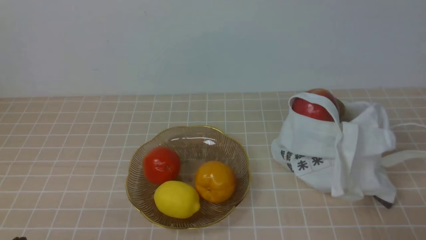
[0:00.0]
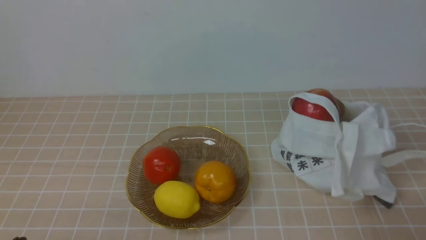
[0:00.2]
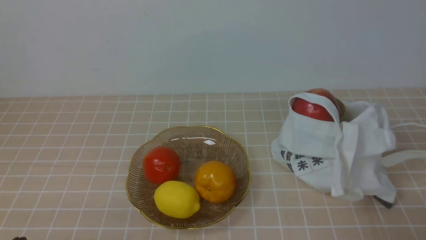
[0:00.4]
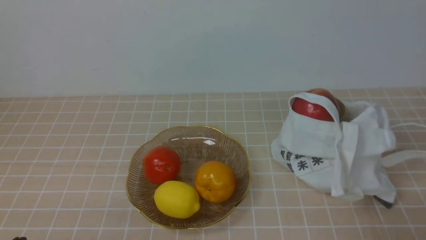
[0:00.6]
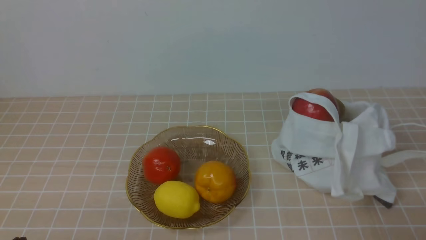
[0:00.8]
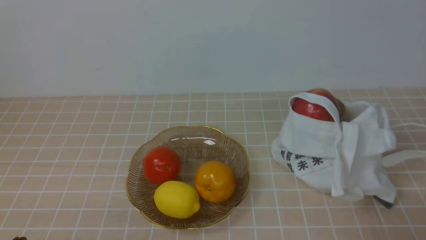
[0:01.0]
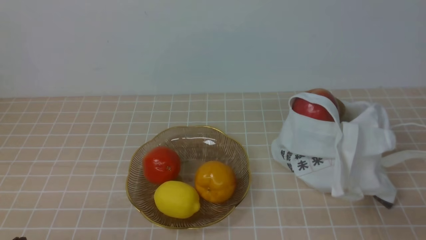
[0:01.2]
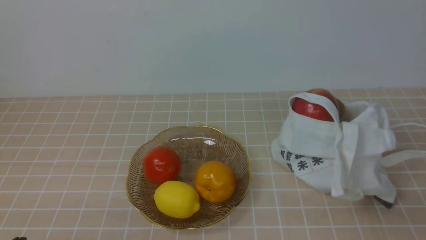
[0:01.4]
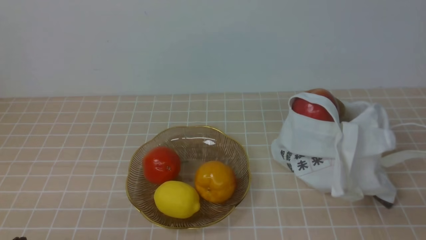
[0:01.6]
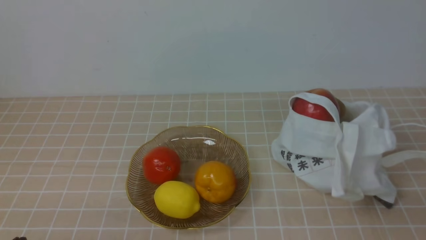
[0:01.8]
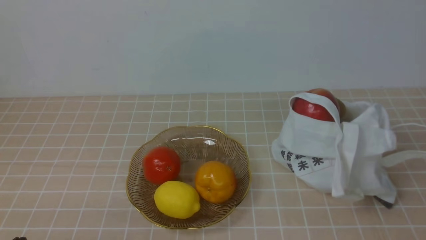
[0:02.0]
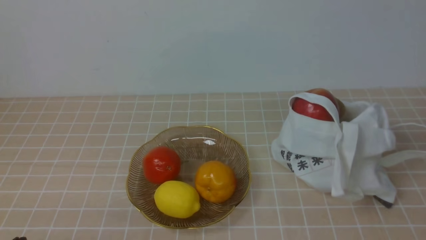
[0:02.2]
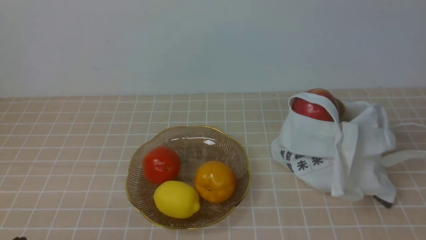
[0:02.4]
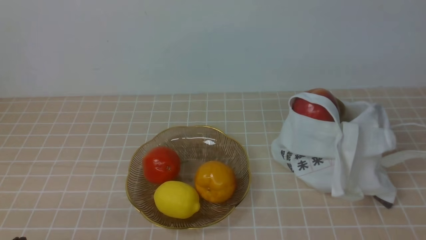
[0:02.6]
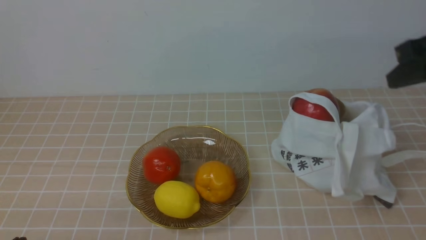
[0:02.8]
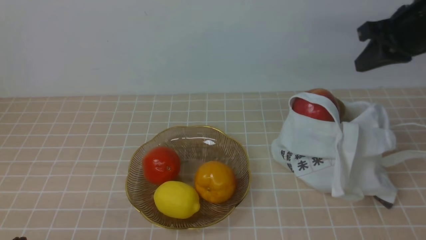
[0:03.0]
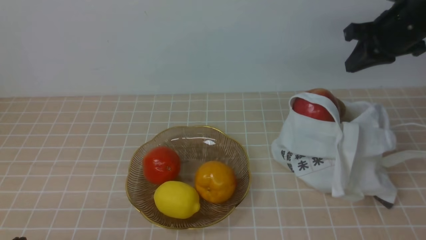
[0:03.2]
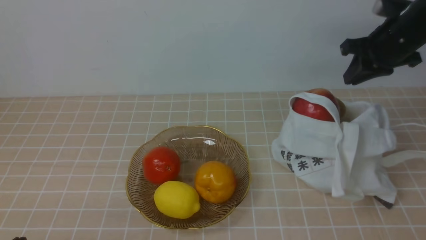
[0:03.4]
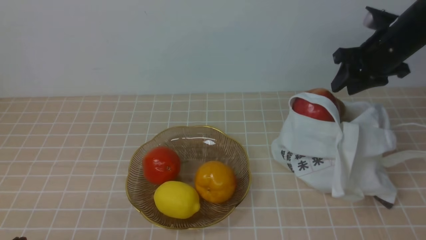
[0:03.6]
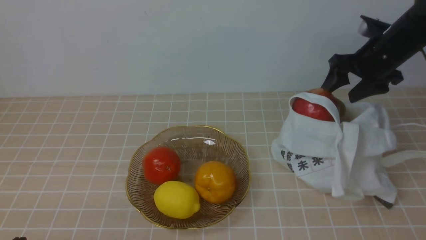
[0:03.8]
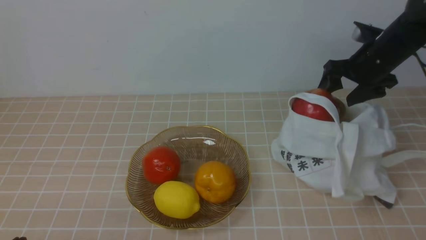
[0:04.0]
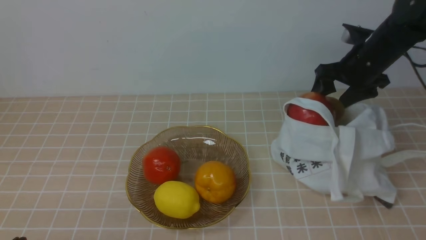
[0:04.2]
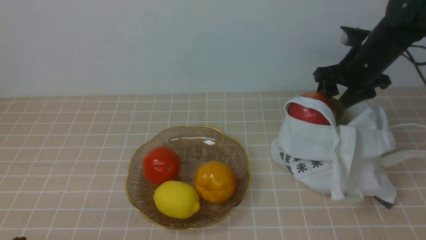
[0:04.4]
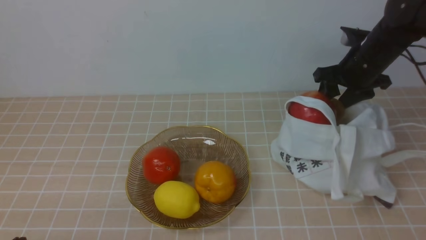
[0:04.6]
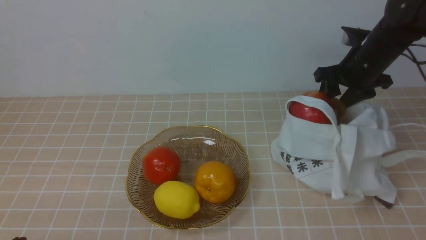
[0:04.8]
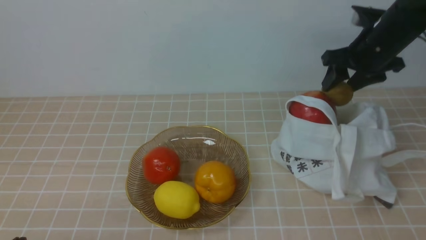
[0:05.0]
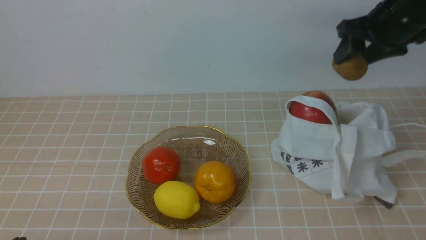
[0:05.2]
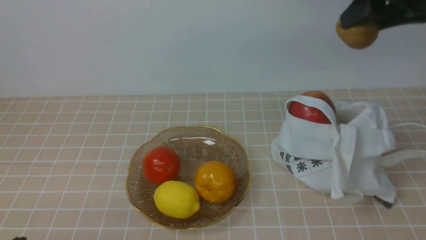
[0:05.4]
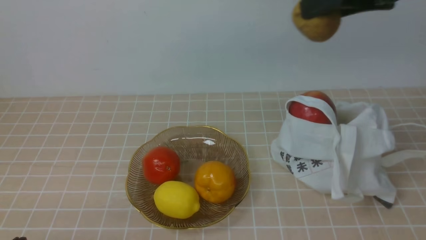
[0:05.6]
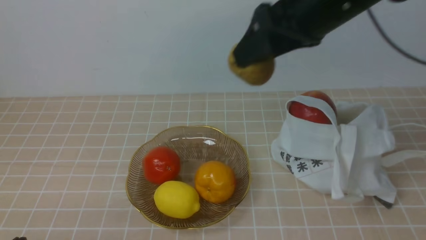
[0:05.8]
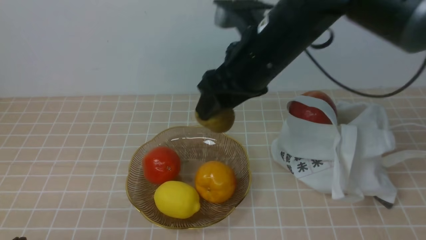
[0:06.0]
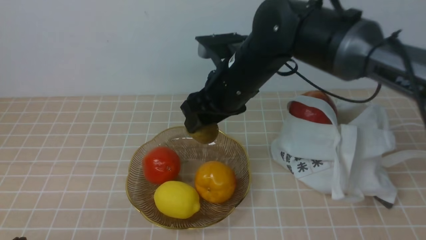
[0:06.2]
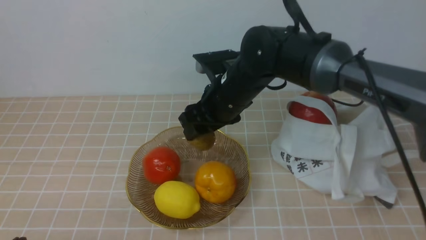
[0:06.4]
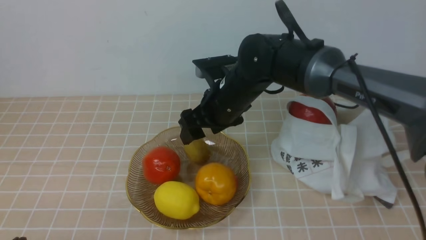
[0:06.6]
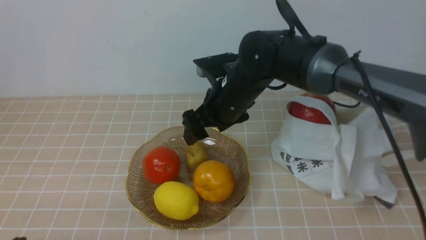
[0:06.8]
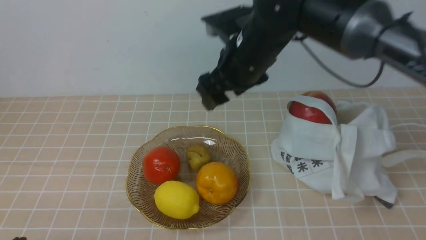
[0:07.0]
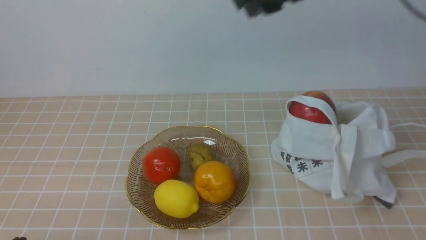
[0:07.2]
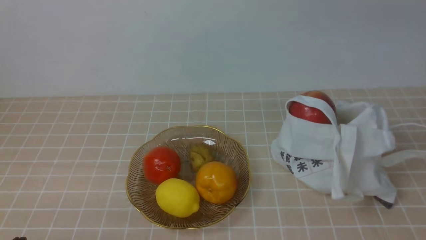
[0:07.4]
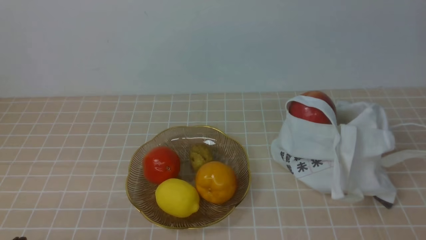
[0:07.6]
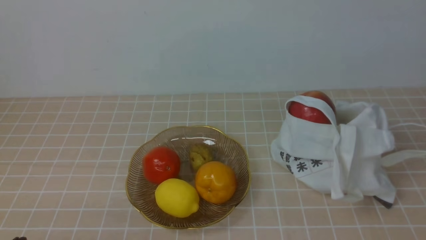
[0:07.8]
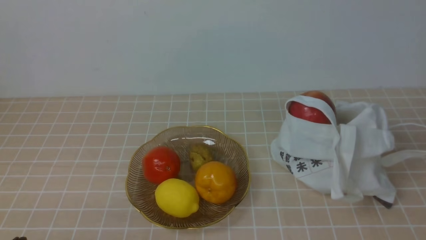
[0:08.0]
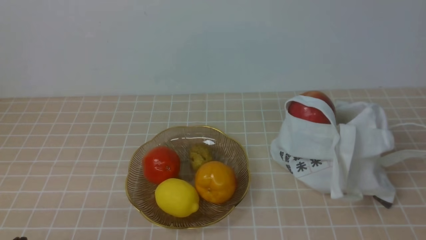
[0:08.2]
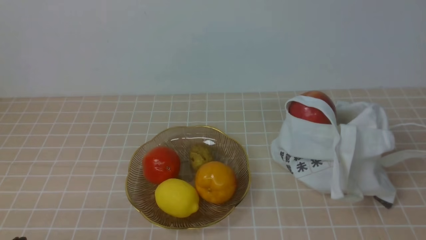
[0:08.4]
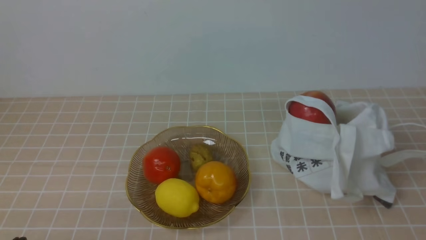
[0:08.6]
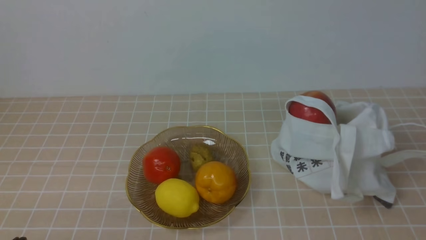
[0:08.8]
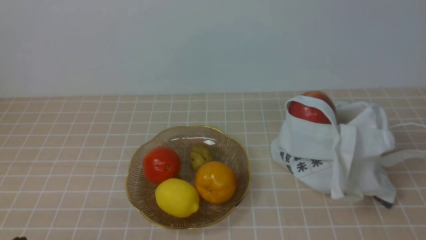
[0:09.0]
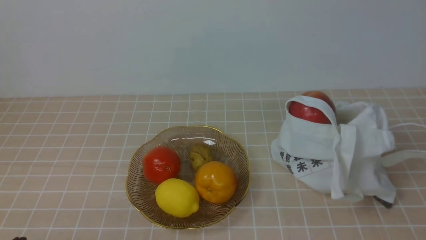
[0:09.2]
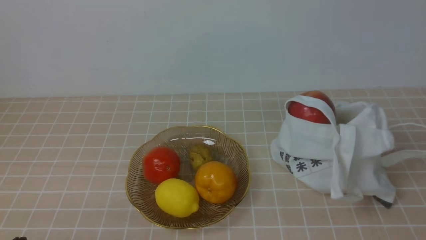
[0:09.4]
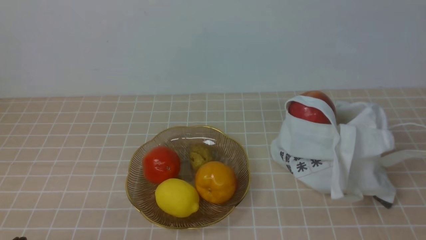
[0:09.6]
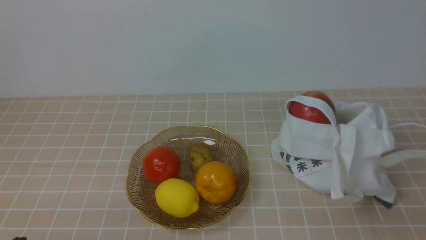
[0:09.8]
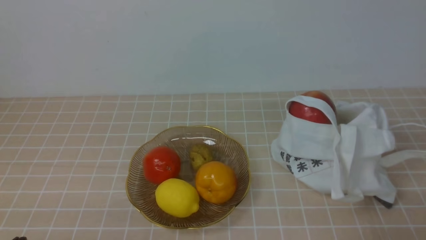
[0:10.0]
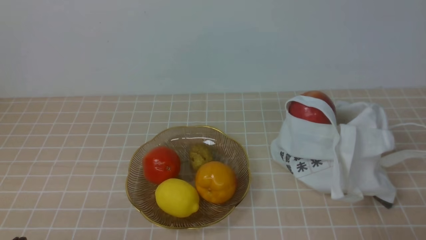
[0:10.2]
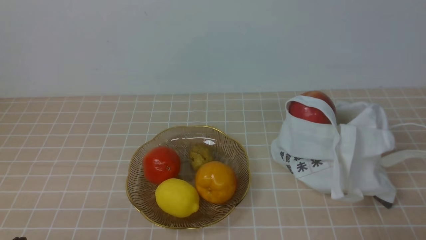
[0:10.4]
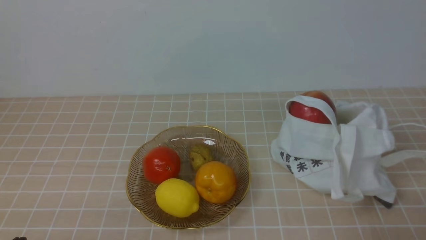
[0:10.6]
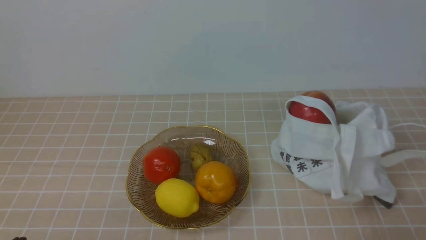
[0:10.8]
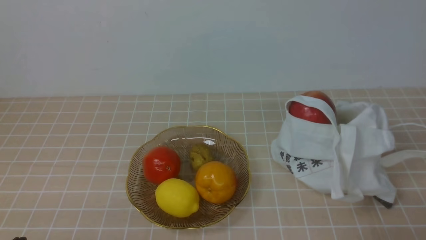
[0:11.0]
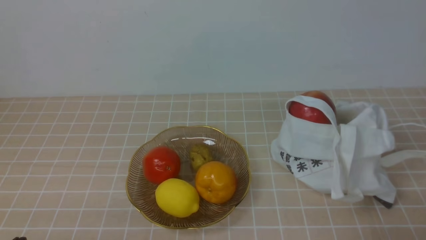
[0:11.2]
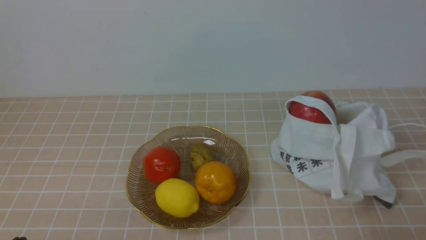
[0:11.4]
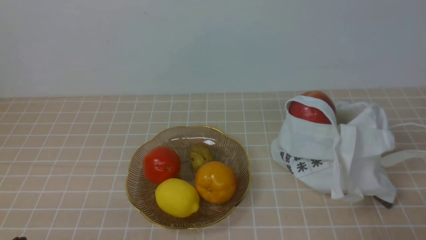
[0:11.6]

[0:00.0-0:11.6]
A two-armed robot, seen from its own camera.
Step, 0:00.0 to 0:04.8: use the right arm to grab a kiwi from the bag.
Step, 0:05.0 to 0:06.6: use the right arm to put the kiwi into the empty plate on the left.
0:01.4 to 0:02.8: The right gripper heads upward and forward, covering approximately 25 cm.
0:02.8 to 0:04.4: The right gripper moves forward and downward, some 25 cm, and opens its fingers.
0:04.4 to 0:05.8: The right gripper heads upward, backward and to the left, covering roughly 25 cm.
0:05.8 to 0:07.2: The right gripper goes some 10 cm to the left, and reaches approximately 20 cm downward, then returns.
0:07.2 to 0:08.8: The right gripper is displaced backward and to the right by some 40 cm, and closes its fingers.
0:10.2 to 0:11.6: Both grippers stay about where they are.

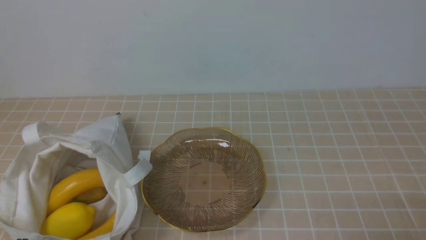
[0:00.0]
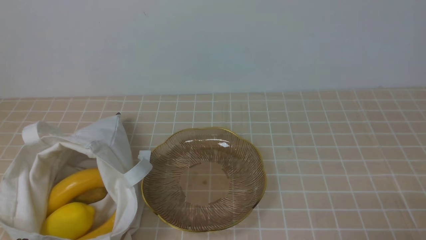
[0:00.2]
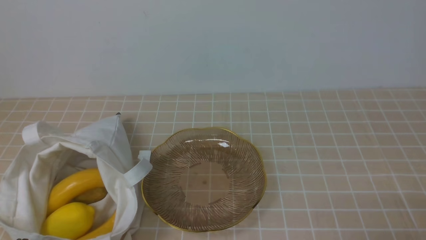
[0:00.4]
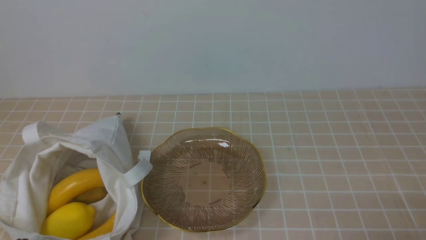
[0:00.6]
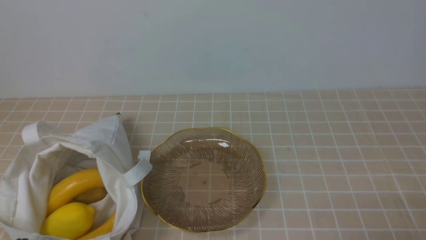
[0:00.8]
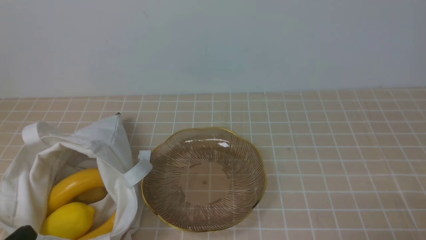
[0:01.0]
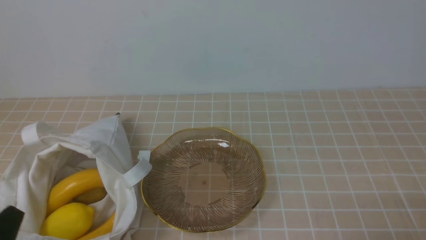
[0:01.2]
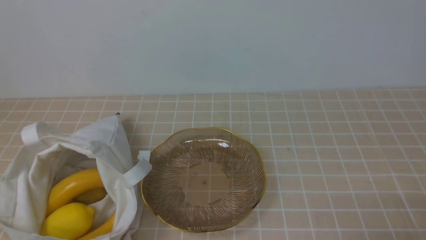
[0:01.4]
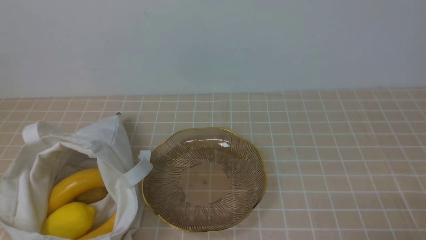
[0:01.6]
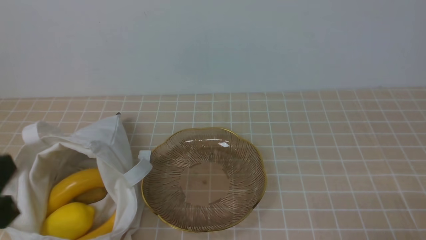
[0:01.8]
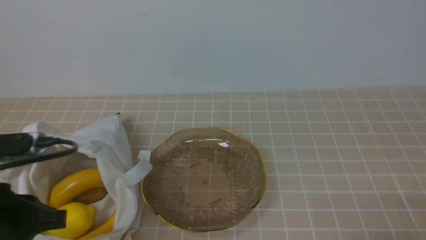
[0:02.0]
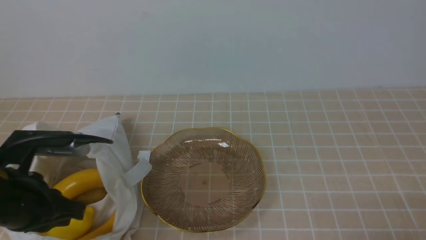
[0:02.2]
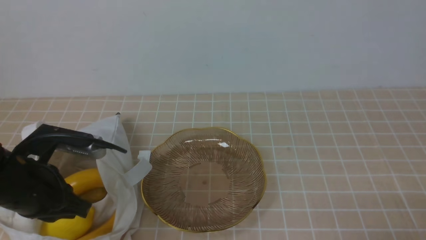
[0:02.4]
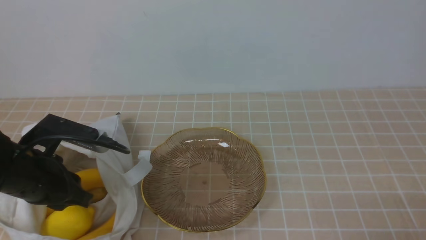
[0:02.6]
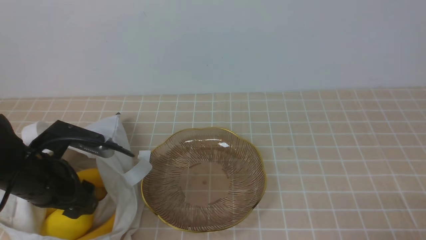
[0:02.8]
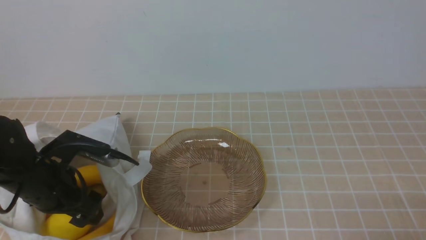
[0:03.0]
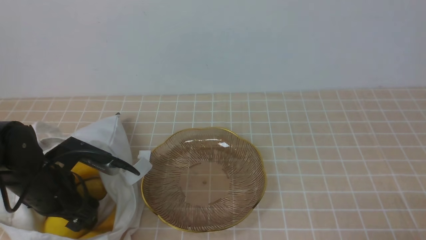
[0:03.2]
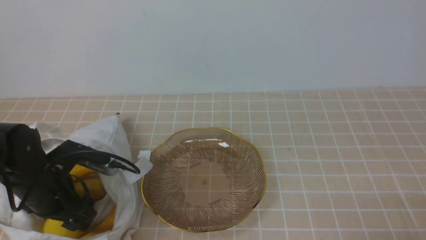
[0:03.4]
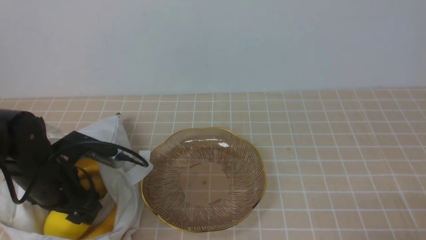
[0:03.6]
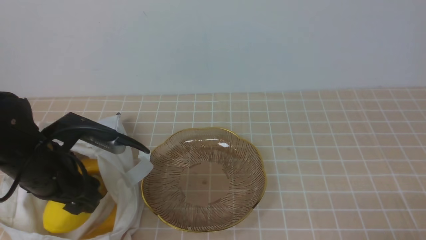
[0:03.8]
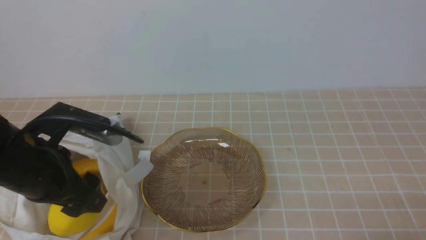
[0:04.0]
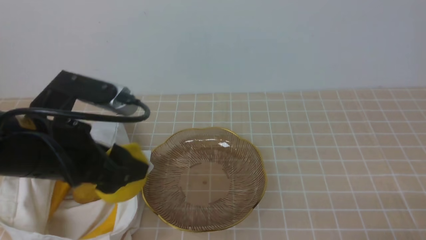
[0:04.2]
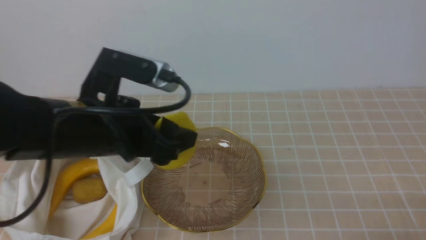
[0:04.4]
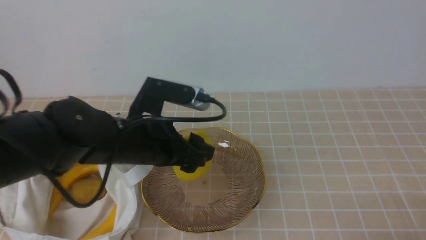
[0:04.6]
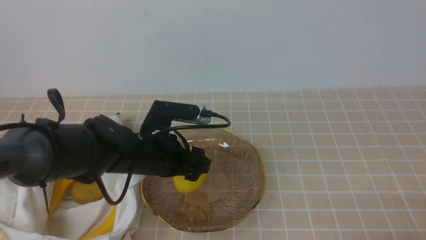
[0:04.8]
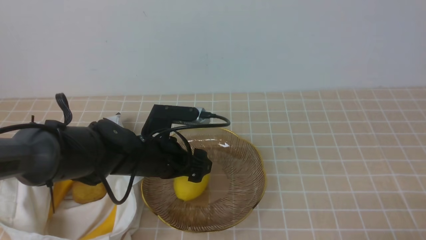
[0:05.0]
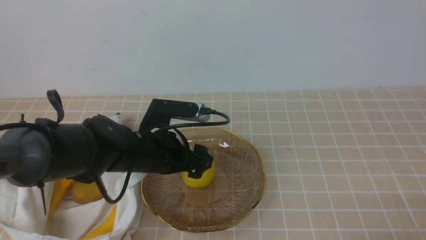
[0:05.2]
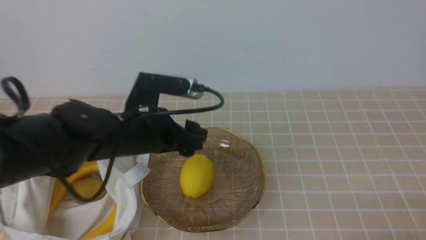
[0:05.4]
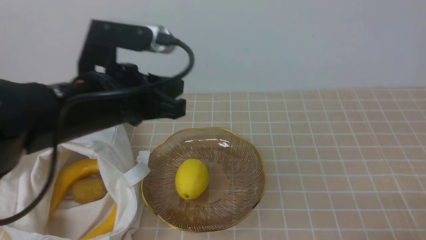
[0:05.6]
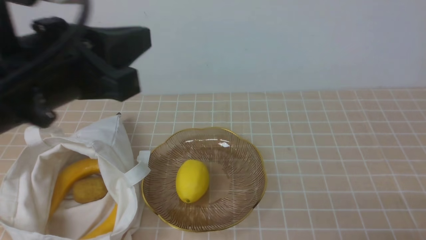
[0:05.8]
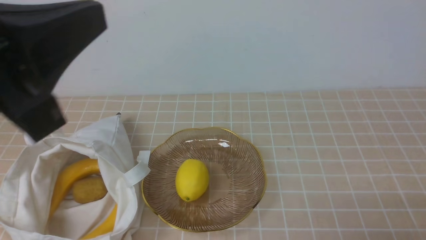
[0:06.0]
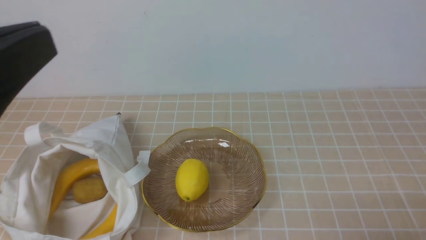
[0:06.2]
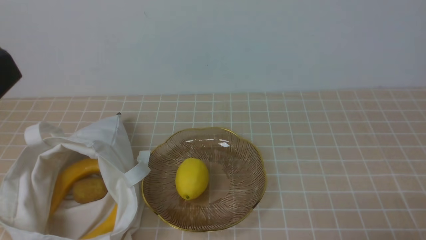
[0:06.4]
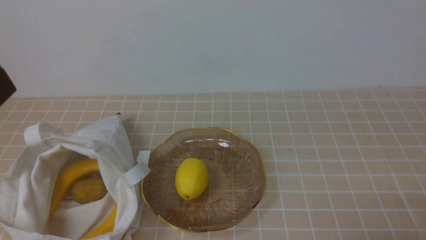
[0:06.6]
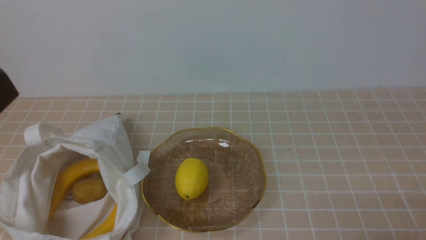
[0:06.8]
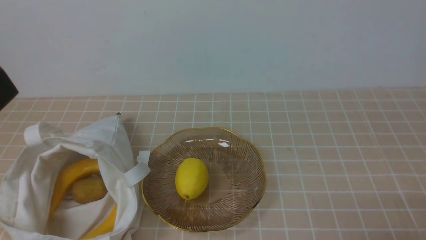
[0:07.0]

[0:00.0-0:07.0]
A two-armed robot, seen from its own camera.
Step, 0:00.0 to 0:03.6: use the left arm to grab a lemon from the bag.
Step, 0:04.0 to 0:05.0: use the left arm to put the lemon into the empty plate on the right.
0:01.4 to 0:02.8: The left gripper moves forward, roughly 20 cm, and opens its fingers.
0:02.8 to 0:04.2: The left gripper travels upward and to the right by about 10 cm.
0:04.2 to 0:05.6: The left gripper travels downward and back again, some 10 cm each way, and closes.
0:05.6 to 0:07.0: The left gripper shifts approximately 20 cm backward and to the left.
